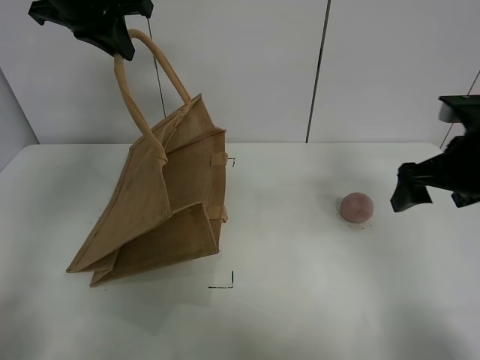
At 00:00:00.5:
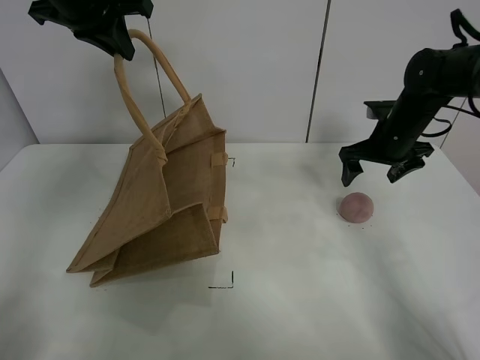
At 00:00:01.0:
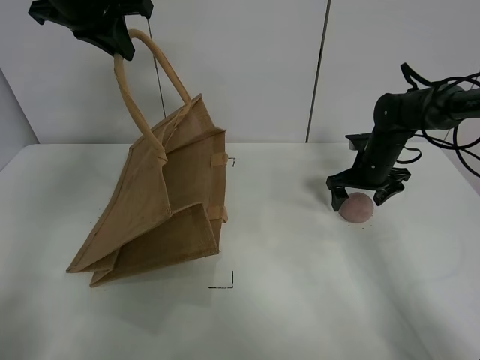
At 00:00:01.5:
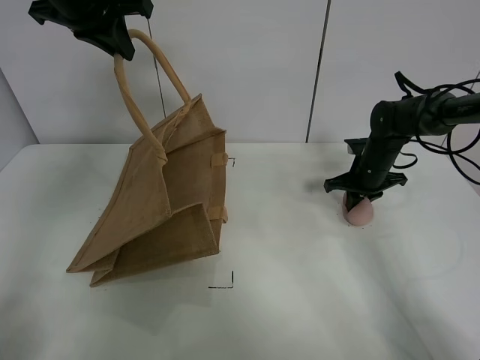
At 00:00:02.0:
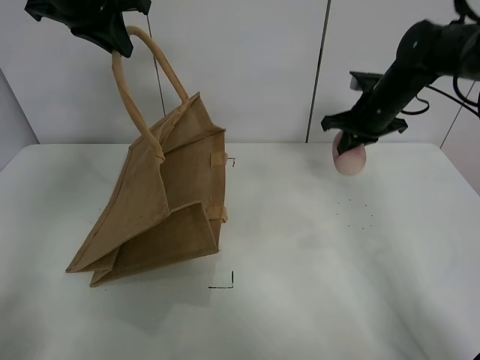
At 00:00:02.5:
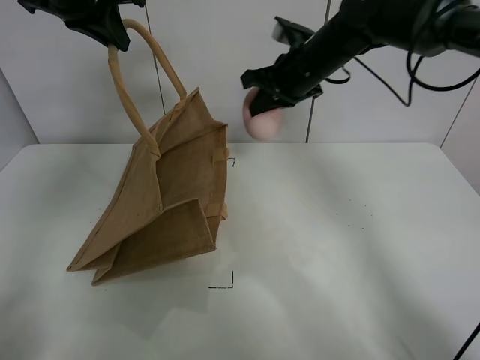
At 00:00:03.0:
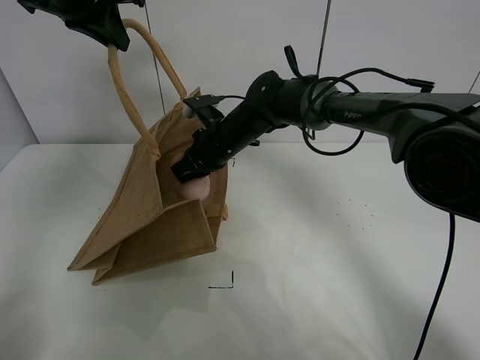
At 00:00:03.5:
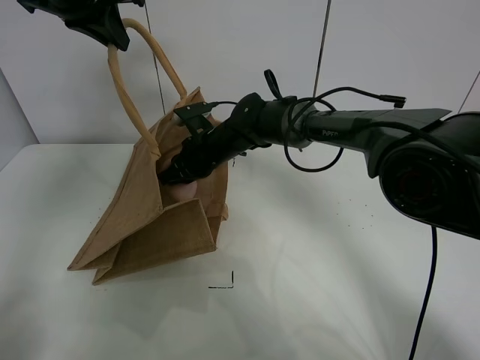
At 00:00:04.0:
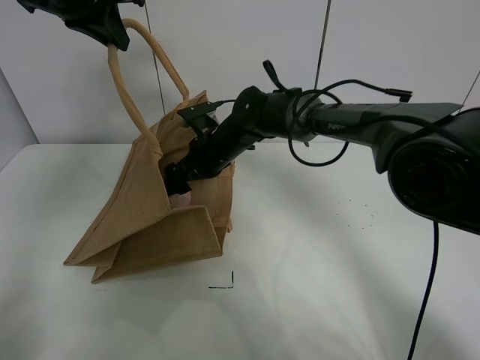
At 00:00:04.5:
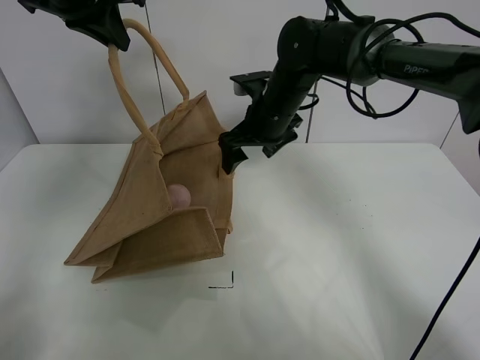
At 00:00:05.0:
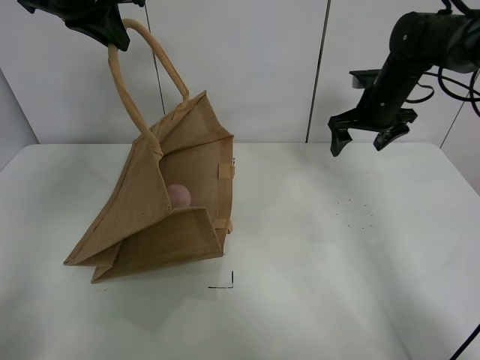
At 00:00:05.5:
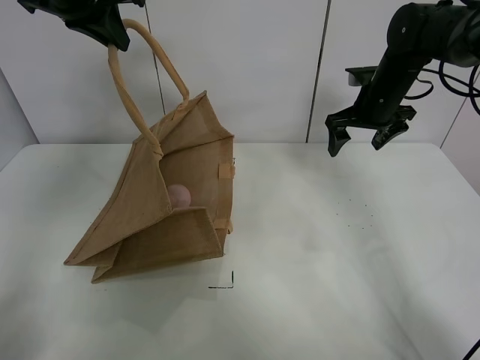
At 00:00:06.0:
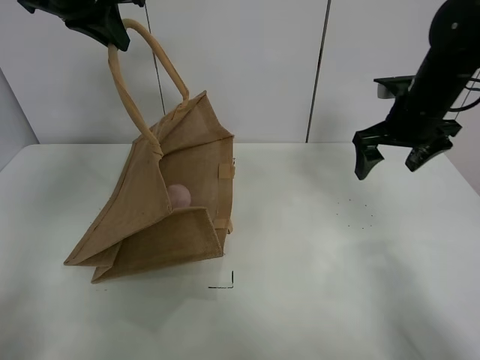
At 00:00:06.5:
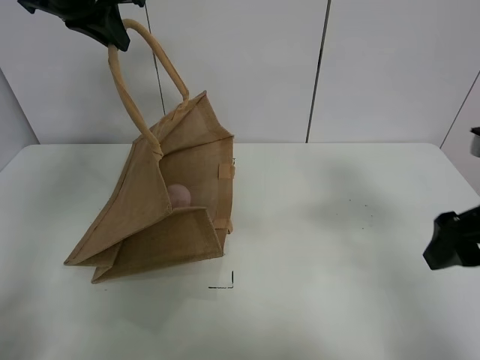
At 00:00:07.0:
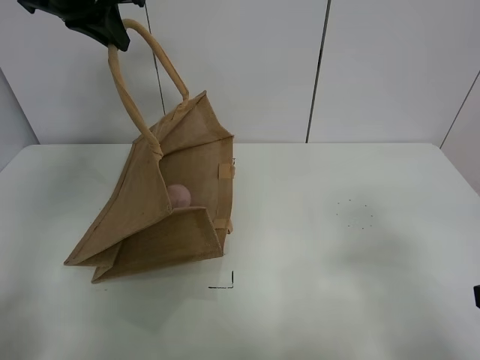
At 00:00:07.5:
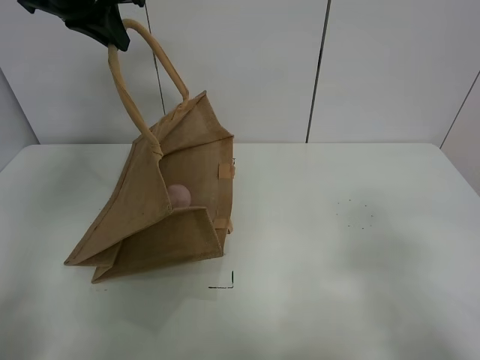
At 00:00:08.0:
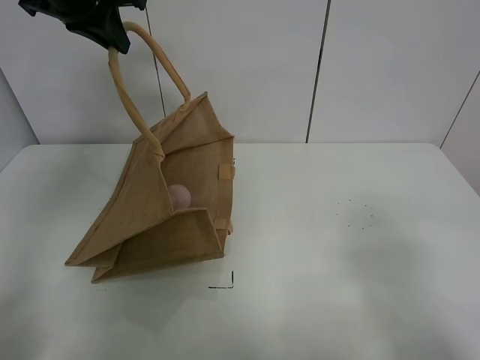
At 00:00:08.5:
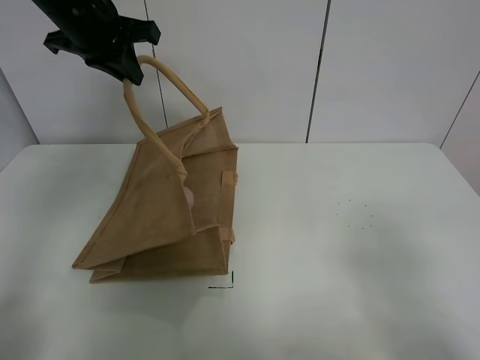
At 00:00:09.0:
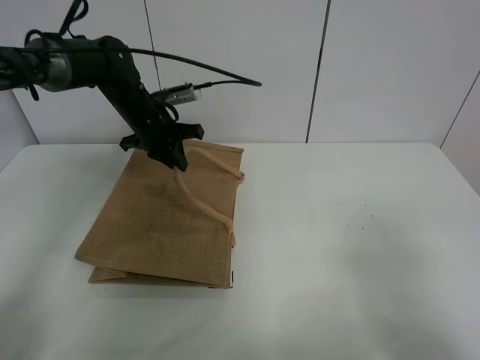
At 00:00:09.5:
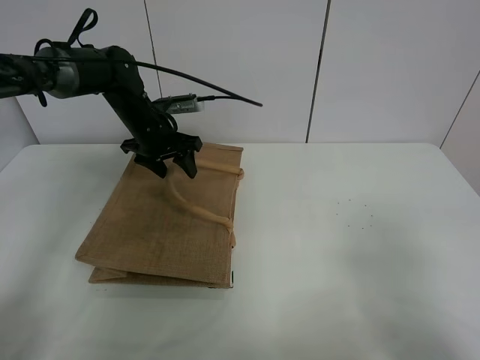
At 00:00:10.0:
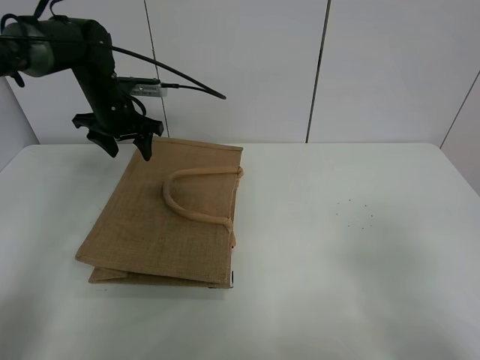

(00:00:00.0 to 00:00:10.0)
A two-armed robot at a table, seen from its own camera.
Task of the whole recording: open the brown linen bag and put the peach in the bag.
Step, 00:00:00.0 - 00:00:01.5: Grasp the peach with right gripper.
Step, 00:00:02.0 - 00:00:04.5: Place the peach in the handbag with right gripper.
00:00:00.0 - 00:00:02.0: The right gripper is displaced forward by about 20 cm, and closes its fingers.
00:00:02.0 - 00:00:04.0: The right gripper heads to the left, covering approximately 25 cm, and opens.
00:00:04.0 - 00:00:06.0: The right gripper is displaced to the right by approximately 25 cm.
00:00:06.0 - 00:00:08.0: The right gripper goes about 35 cm backward.
00:00:08.0 - 00:00:10.0: The left gripper moves downward and forward, approximately 20 cm, and opens its fingers.

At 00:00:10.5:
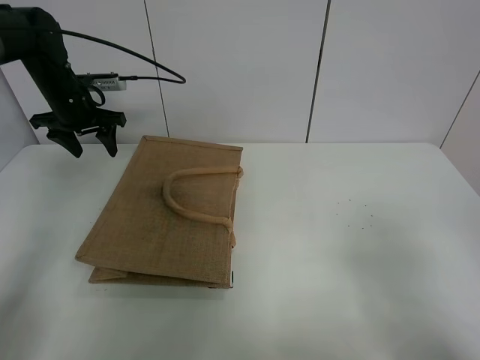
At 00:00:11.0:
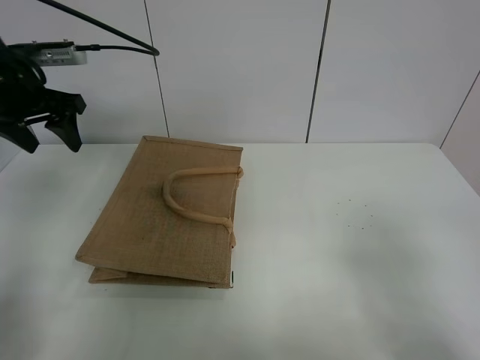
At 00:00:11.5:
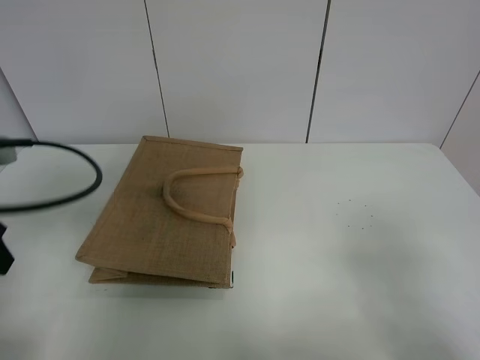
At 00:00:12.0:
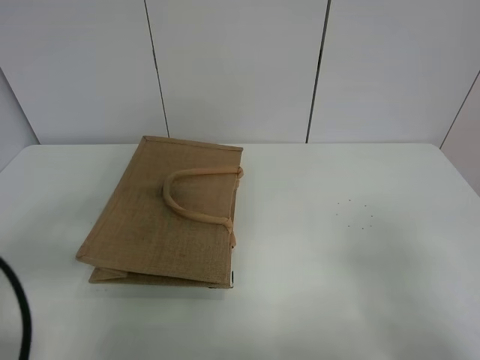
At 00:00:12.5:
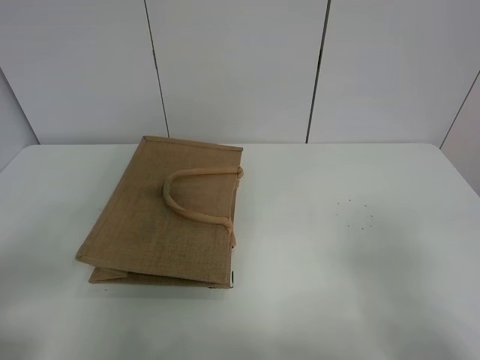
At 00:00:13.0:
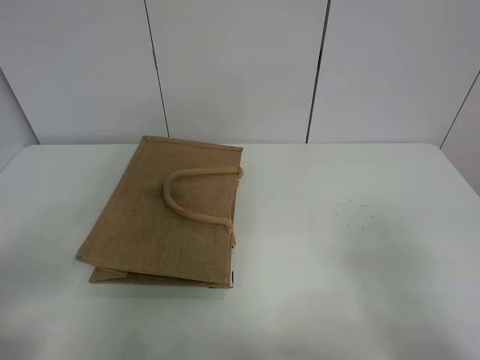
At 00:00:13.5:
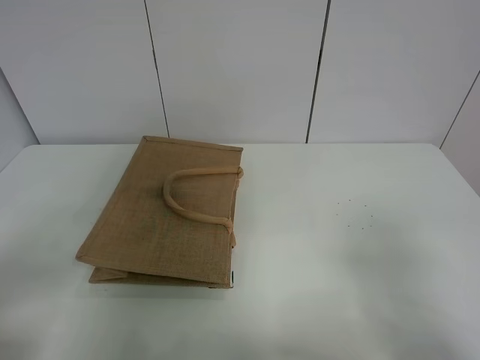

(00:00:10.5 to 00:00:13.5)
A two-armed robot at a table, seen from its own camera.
Task of the whole recording: open the brown linen bag and put the peach in the bag.
00:00:10.5 - 00:00:12.0: The left gripper is displaced backward by approximately 40 cm.
00:00:12.0 - 00:00:13.5: The left gripper moves backward, some 5 cm.
